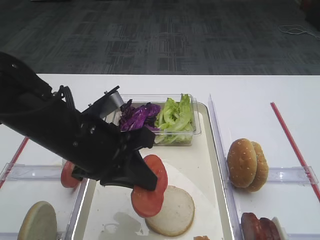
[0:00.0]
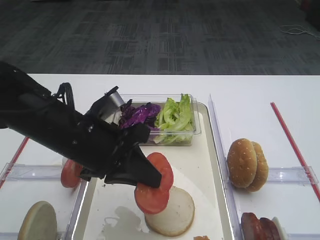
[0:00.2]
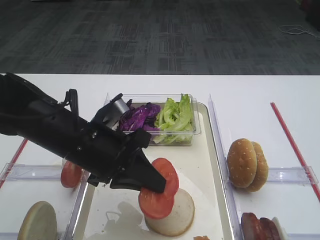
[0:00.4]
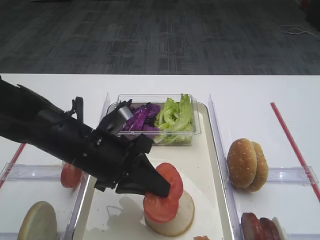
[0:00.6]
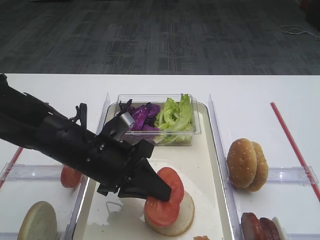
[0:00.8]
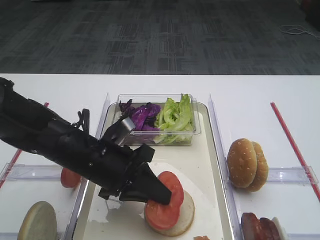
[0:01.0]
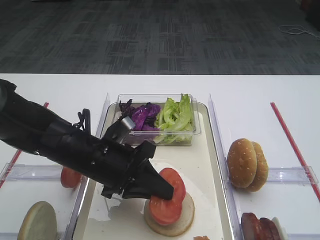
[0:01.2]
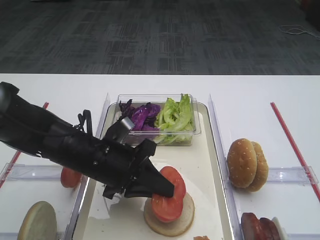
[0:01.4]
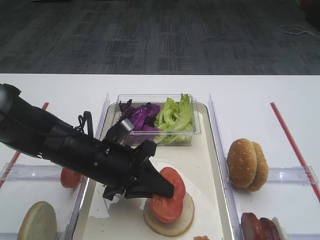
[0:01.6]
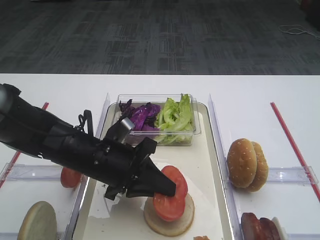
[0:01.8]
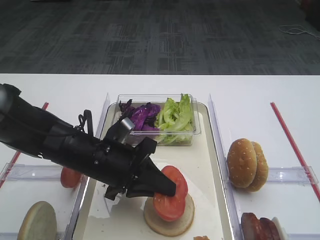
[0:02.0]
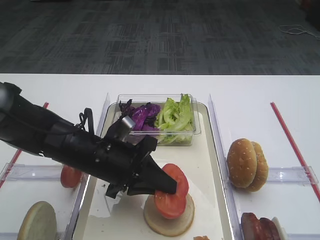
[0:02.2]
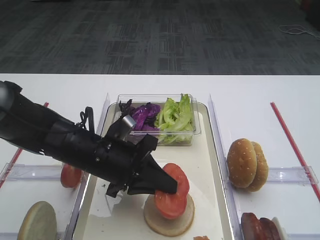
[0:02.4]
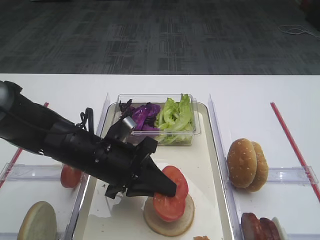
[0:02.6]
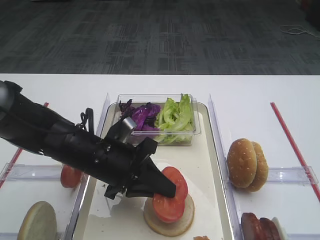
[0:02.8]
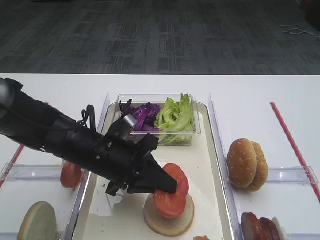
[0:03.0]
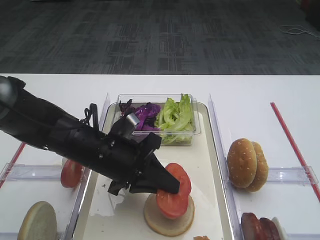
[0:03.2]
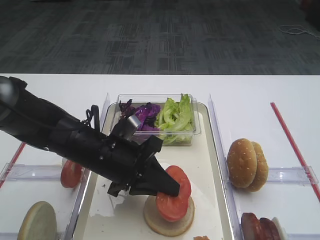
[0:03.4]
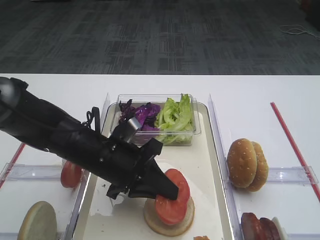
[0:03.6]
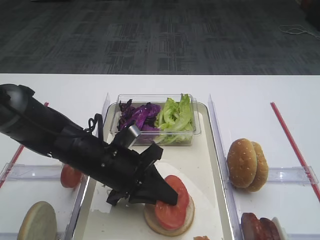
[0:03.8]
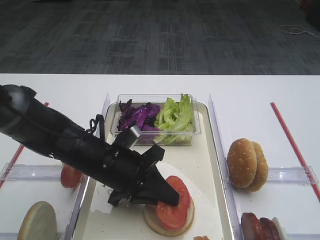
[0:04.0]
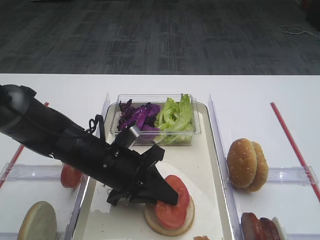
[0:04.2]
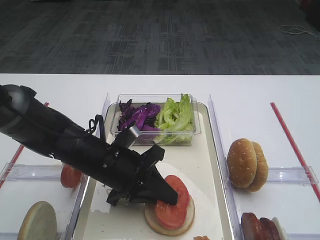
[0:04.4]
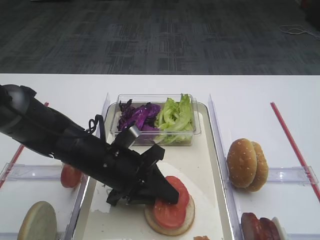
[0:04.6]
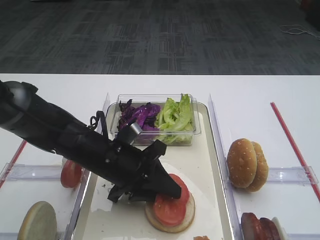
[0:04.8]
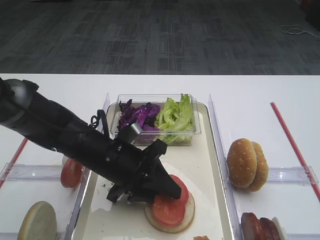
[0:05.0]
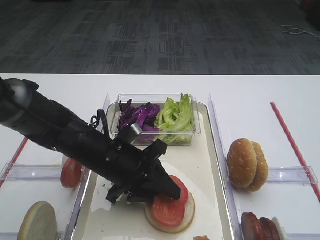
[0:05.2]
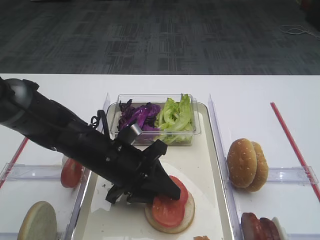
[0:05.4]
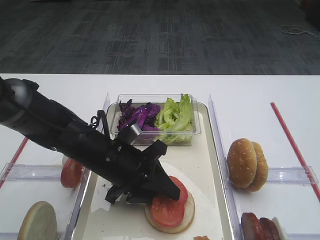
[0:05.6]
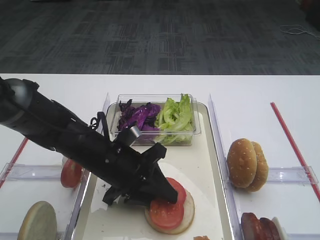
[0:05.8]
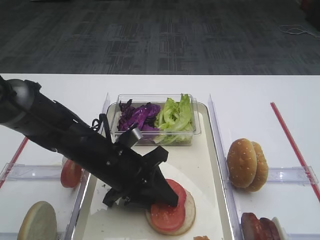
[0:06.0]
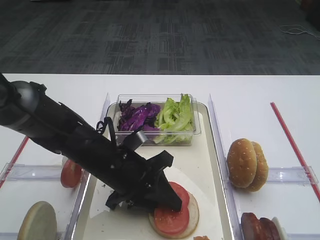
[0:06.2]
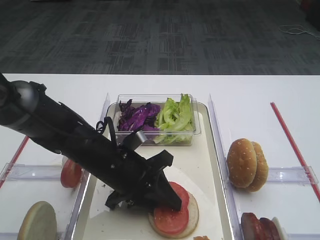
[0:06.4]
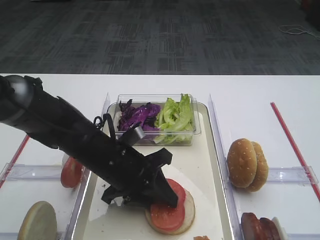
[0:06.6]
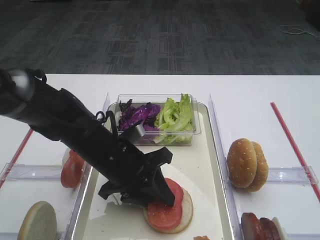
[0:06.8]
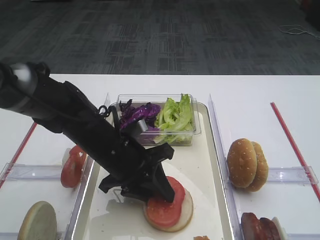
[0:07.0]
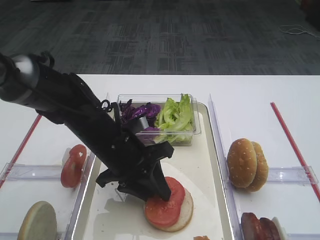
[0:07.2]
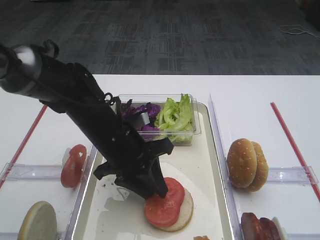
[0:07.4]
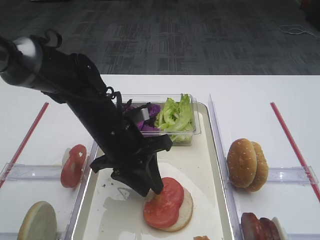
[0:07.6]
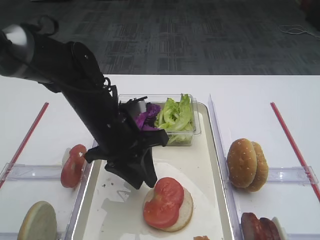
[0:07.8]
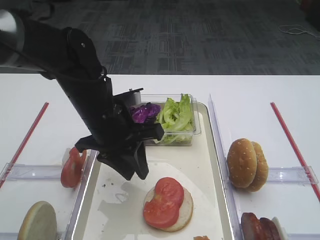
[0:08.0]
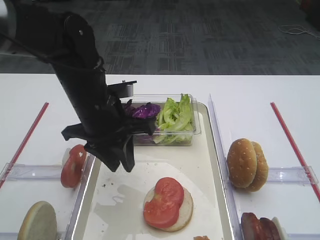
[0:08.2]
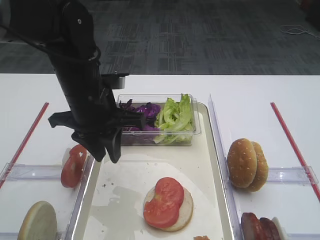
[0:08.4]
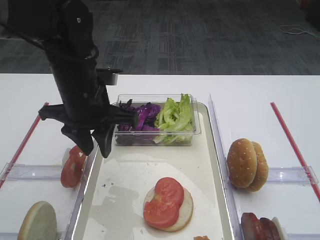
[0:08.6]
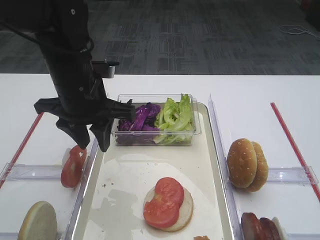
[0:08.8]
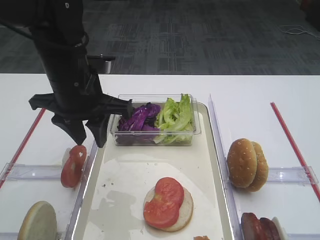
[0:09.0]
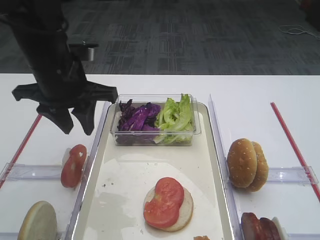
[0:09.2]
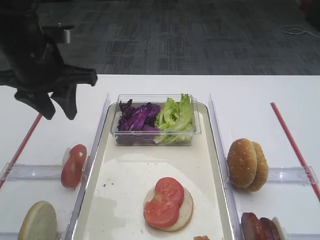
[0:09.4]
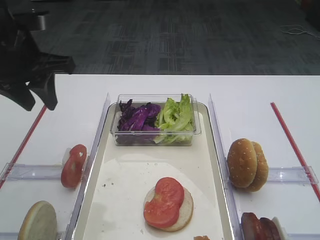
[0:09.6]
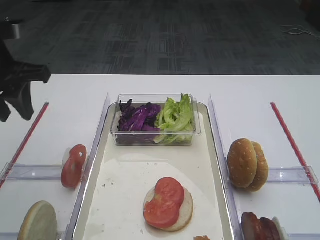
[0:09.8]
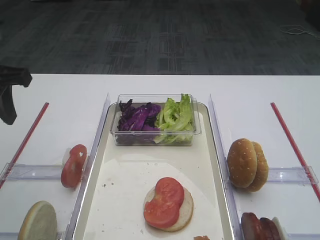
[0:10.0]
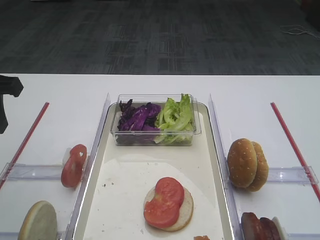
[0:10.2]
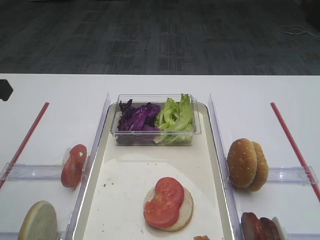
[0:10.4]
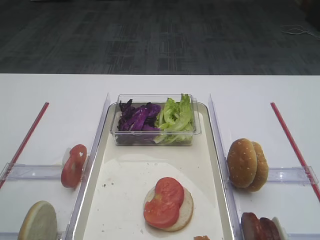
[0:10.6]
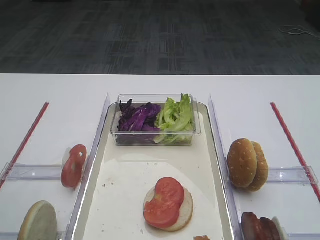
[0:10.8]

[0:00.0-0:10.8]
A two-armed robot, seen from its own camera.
Step, 0:00.0 to 0:07.8: Place the tomato slice on the bread slice with the left gripper.
0:00.0 to 0:01.6: The left gripper travels downward by about 10 cm.
0:01.6 to 0:03.0: Both grippers stay put.
0:03.0 to 0:06.2: The grippers move only a little.
0:06.2 to 0:07.8: The left gripper moves upward, about 5 cm.
0:07.8 to 0:09.2: The left gripper shifts some 10 cm upward and to the left.
0:09.2 to 0:10.8: The left gripper travels backward and to the left by roughly 20 cm.

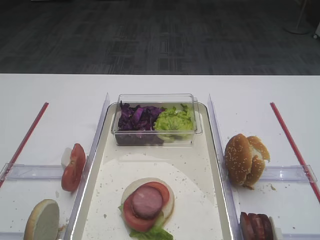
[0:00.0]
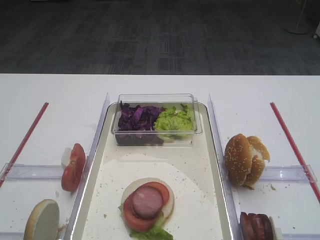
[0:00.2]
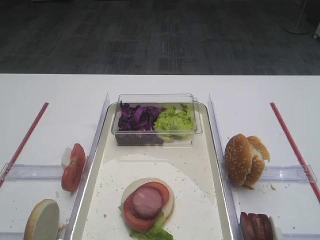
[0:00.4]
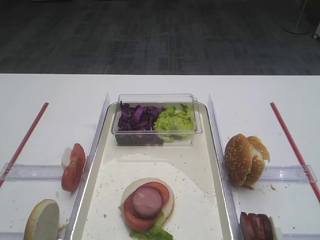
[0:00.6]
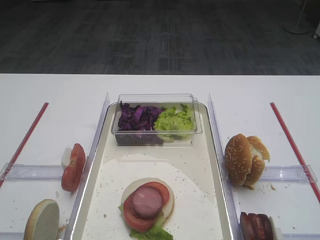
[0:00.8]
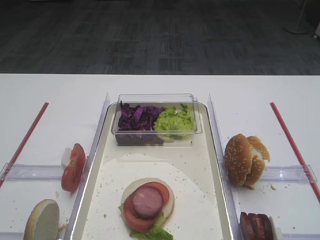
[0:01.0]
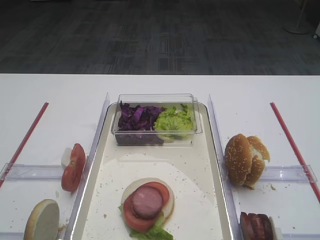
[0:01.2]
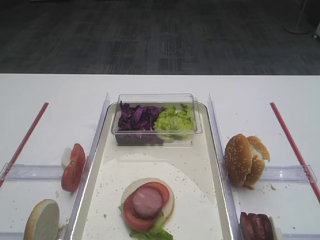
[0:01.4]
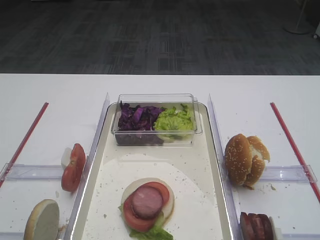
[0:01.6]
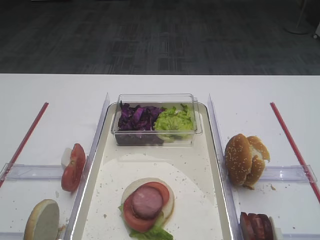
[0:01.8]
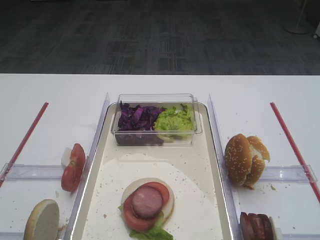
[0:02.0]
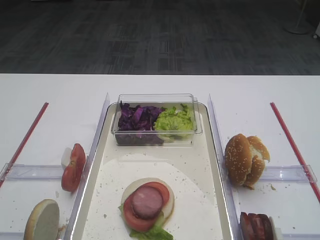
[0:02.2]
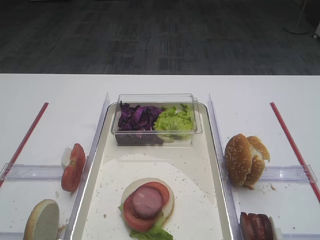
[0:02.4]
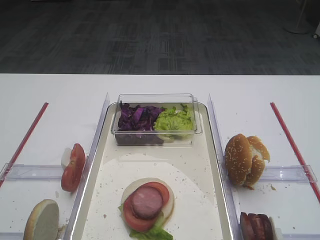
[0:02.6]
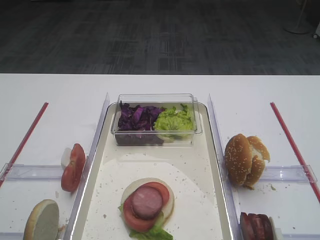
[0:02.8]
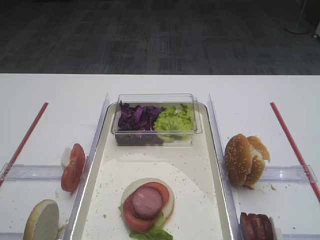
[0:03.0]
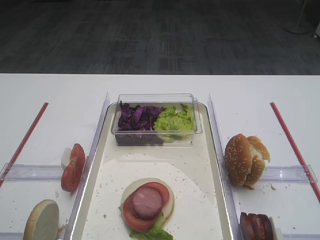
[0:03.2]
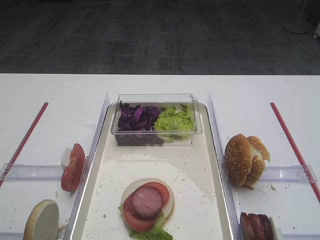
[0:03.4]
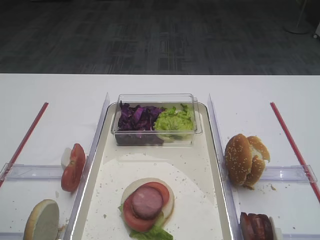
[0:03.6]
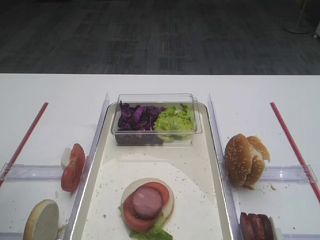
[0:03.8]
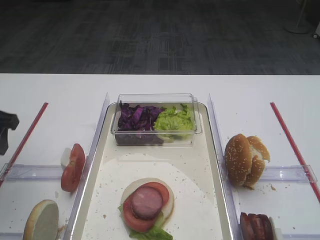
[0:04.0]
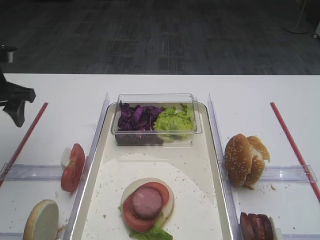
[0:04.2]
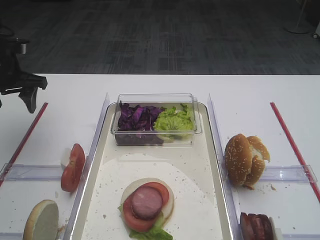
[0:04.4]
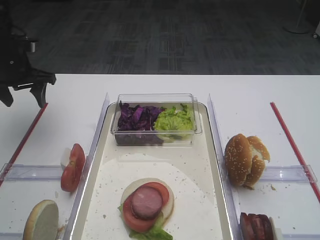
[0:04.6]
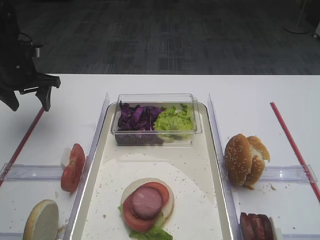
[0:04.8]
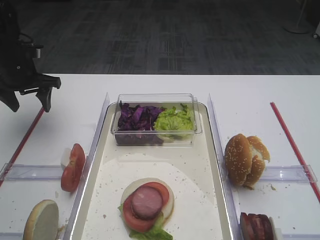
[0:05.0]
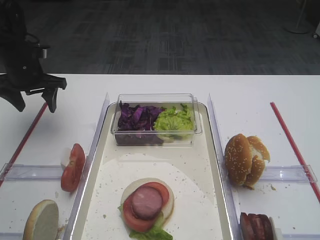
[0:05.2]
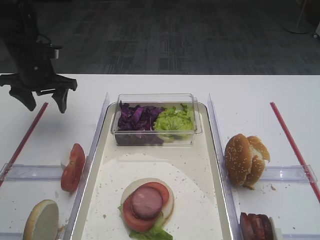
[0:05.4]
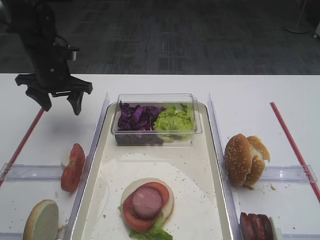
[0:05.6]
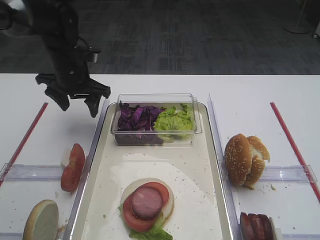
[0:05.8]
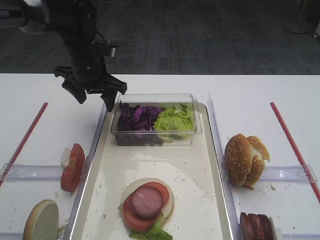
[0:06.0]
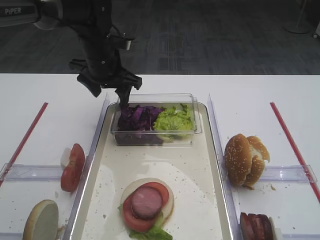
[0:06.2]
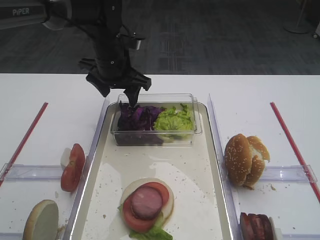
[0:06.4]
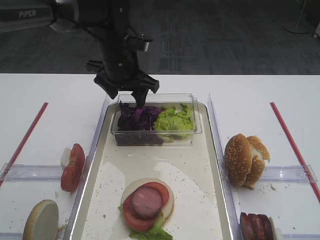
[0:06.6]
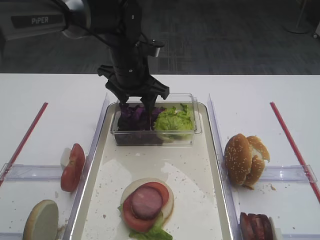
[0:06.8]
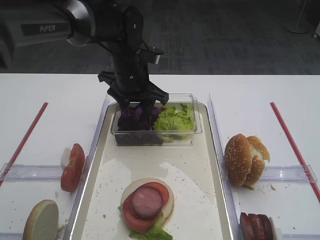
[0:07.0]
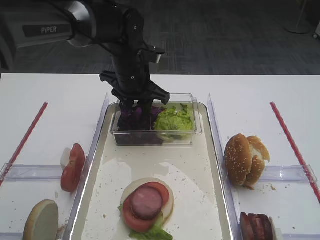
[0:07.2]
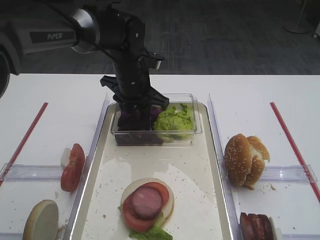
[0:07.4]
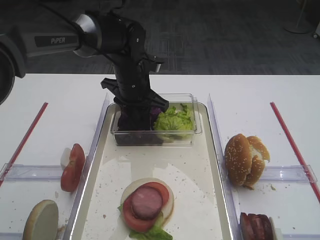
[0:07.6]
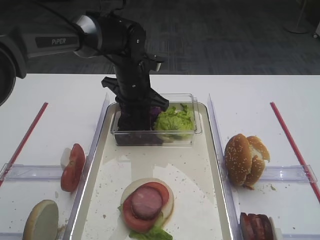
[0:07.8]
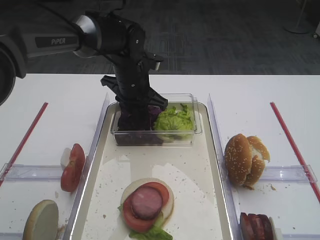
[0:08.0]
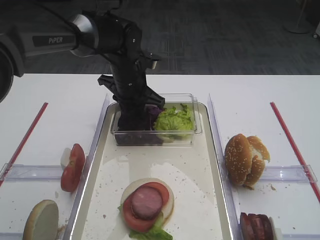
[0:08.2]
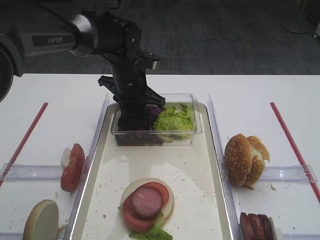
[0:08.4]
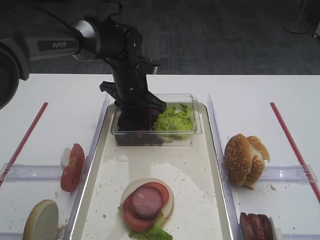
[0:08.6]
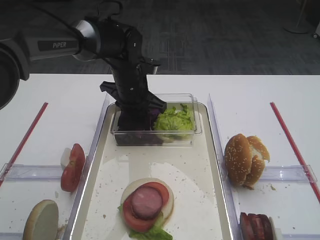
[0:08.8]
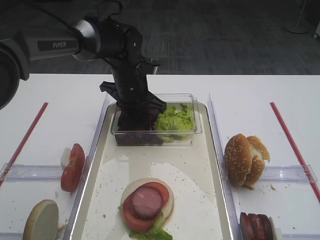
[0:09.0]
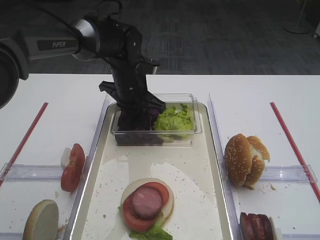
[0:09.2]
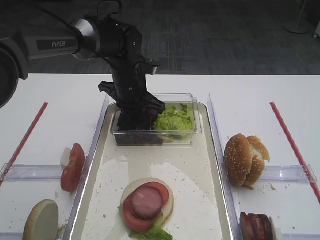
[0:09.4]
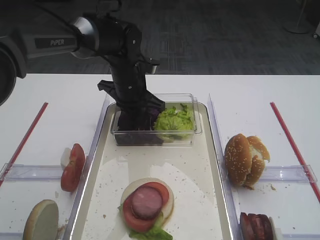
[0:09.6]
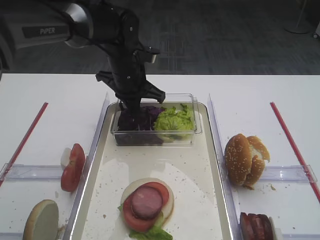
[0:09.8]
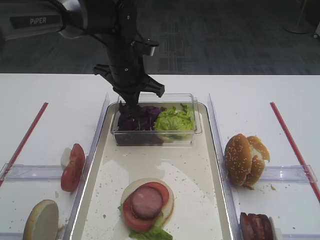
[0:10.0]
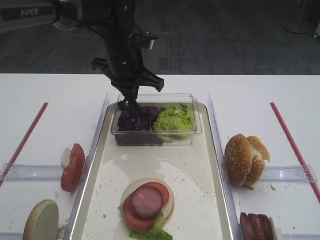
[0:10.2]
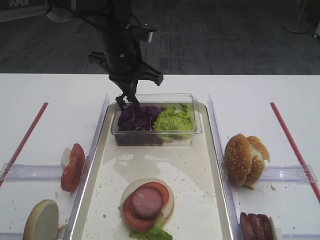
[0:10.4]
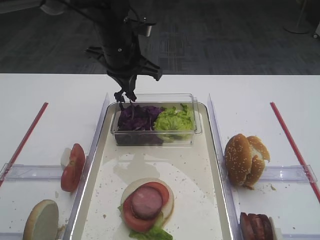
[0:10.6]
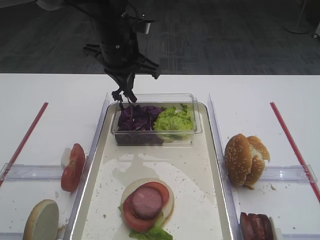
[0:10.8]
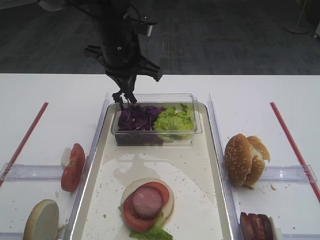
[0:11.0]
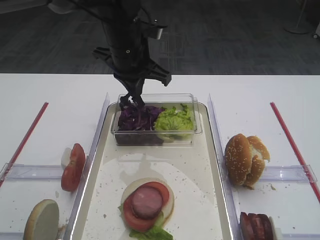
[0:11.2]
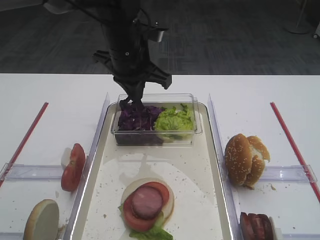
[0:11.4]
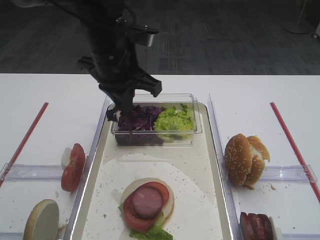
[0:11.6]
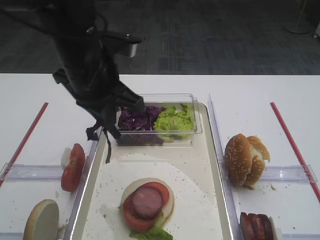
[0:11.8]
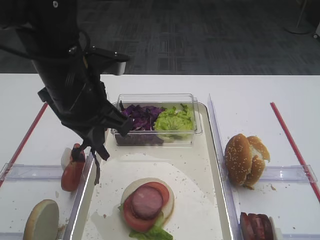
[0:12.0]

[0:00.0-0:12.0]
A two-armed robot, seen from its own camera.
Step, 0:00.0 to 0:10.8: Pick up the purple cabbage with the left gripper.
0:03.0 to 0:04.4: The left gripper goes roughly 30 cm forward.
0:04.4 to 0:06.0: The left gripper goes some 15 cm to the right.
0:06.0 to 0:07.6: The left gripper goes about 10 cm to the right, and closes.
0:07.6 to 0:09.0: The grippers stay close to where they were, moving slightly.
0:09.0 to 0:10.4: The left gripper goes approximately 10 cm upward.
0:10.4 to 0:12.0: The left gripper is displaced backward by roughly 15 cm.
